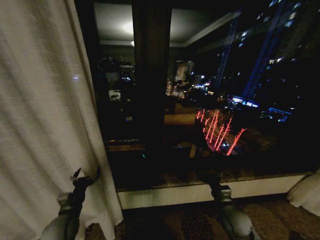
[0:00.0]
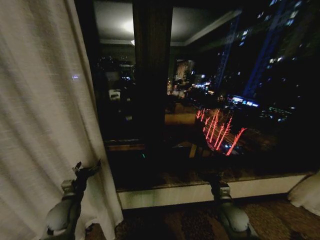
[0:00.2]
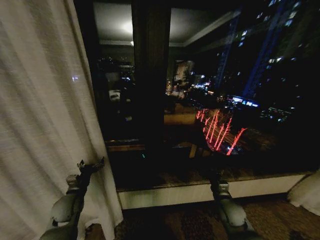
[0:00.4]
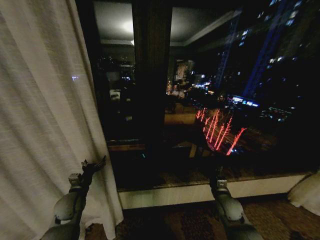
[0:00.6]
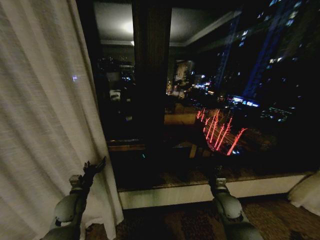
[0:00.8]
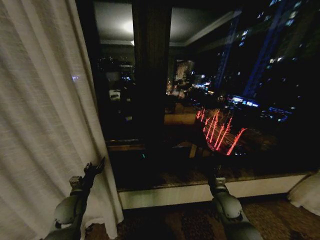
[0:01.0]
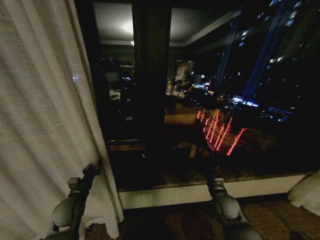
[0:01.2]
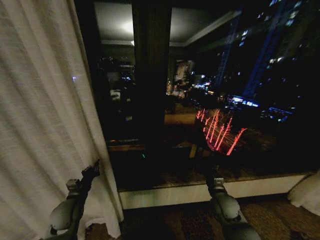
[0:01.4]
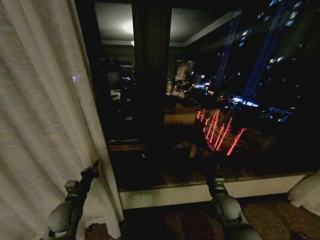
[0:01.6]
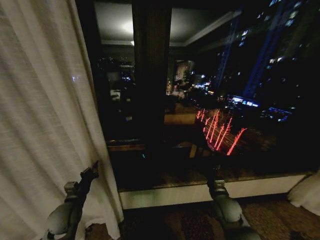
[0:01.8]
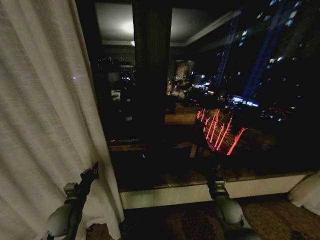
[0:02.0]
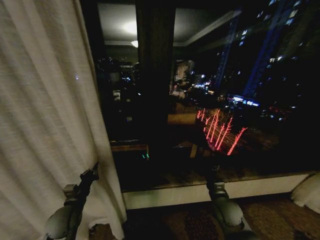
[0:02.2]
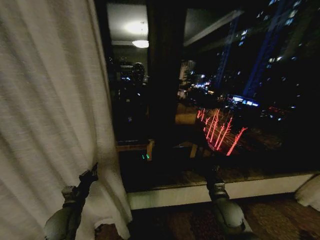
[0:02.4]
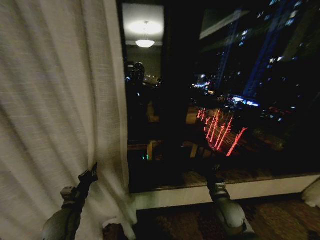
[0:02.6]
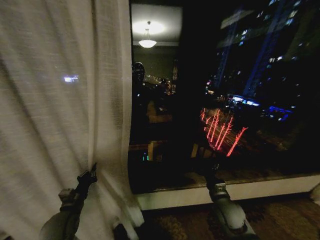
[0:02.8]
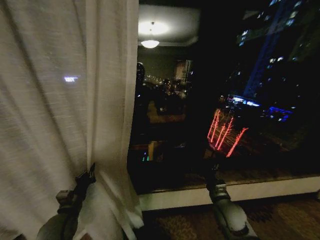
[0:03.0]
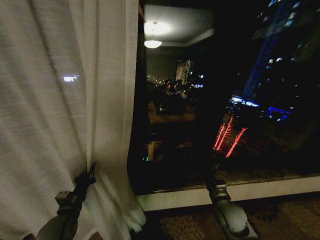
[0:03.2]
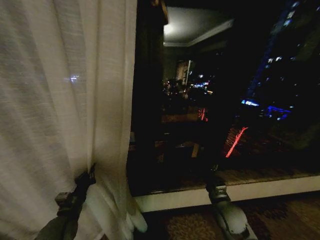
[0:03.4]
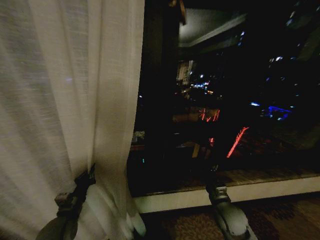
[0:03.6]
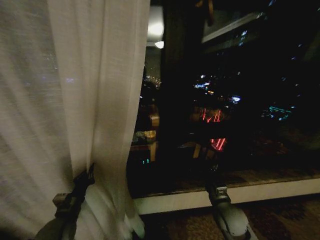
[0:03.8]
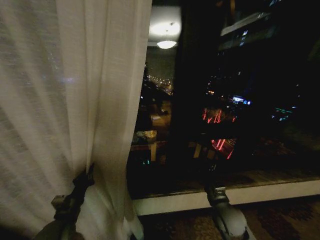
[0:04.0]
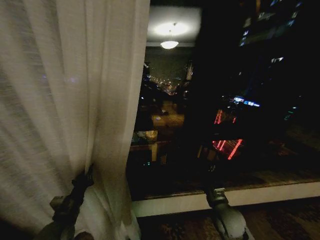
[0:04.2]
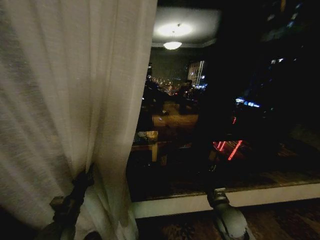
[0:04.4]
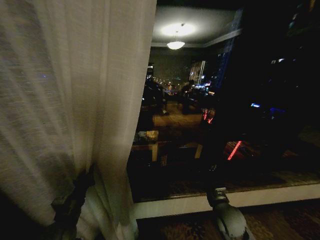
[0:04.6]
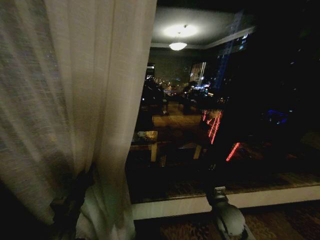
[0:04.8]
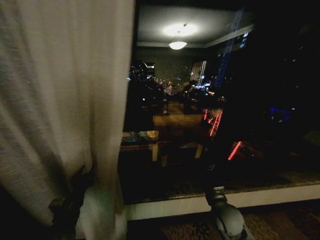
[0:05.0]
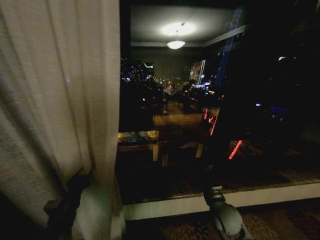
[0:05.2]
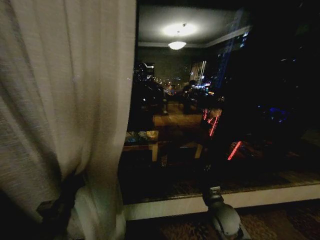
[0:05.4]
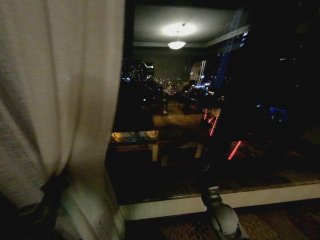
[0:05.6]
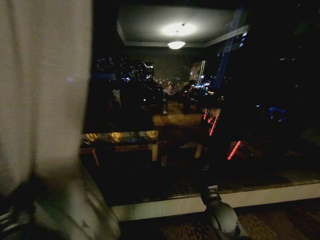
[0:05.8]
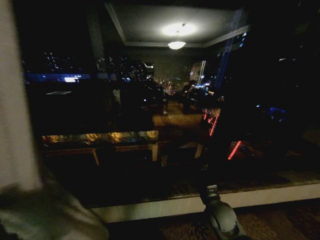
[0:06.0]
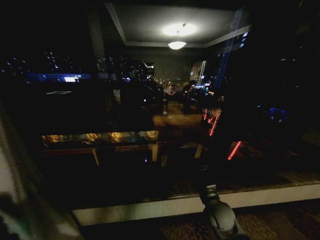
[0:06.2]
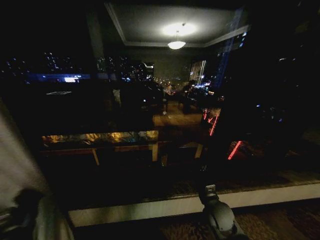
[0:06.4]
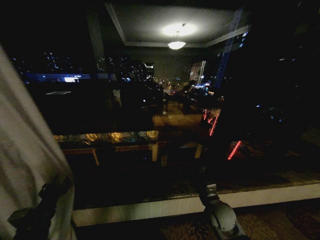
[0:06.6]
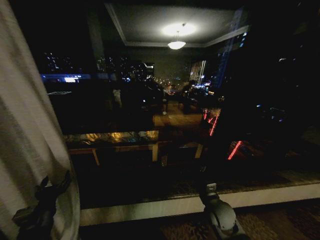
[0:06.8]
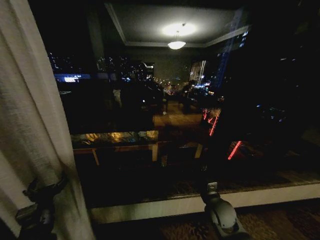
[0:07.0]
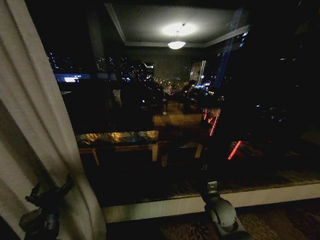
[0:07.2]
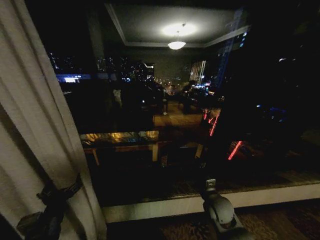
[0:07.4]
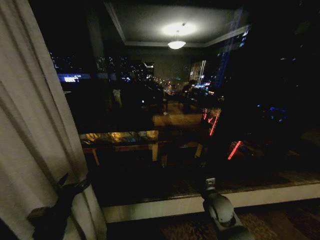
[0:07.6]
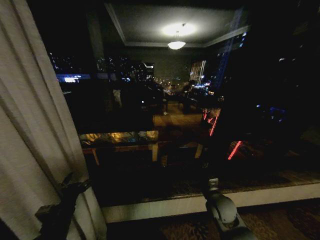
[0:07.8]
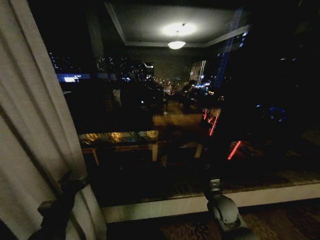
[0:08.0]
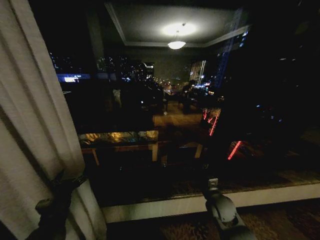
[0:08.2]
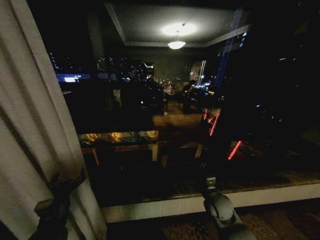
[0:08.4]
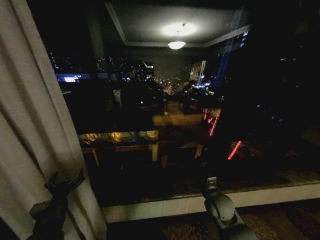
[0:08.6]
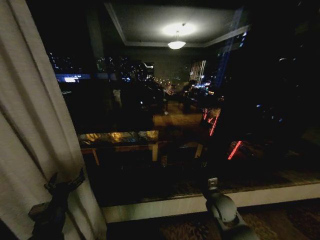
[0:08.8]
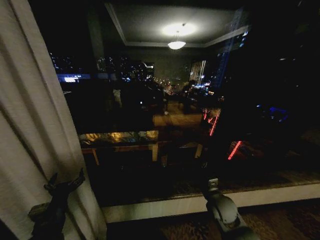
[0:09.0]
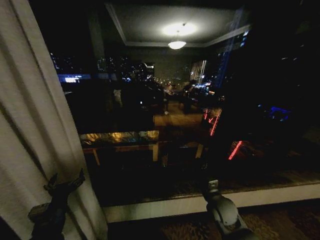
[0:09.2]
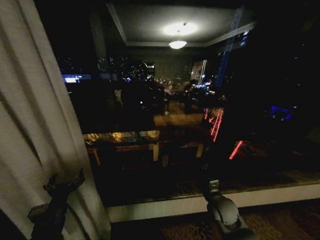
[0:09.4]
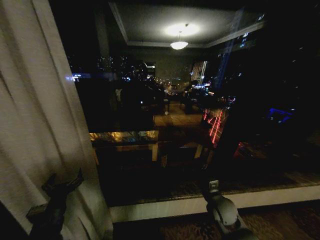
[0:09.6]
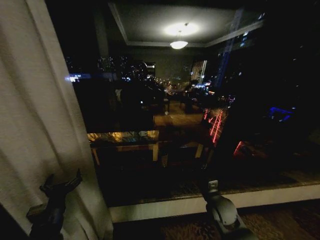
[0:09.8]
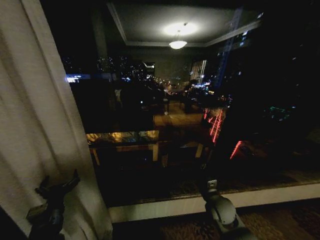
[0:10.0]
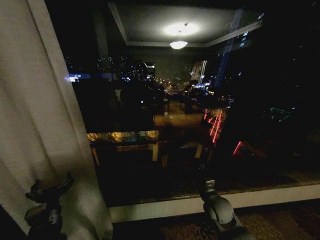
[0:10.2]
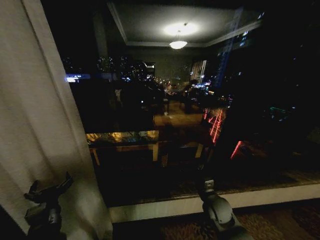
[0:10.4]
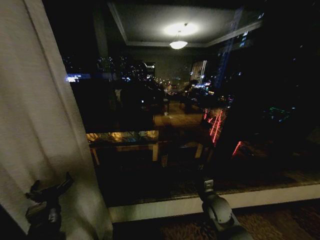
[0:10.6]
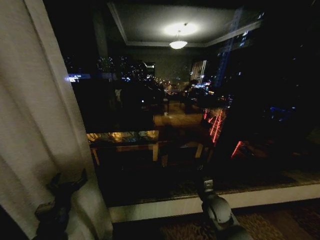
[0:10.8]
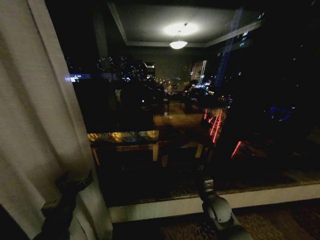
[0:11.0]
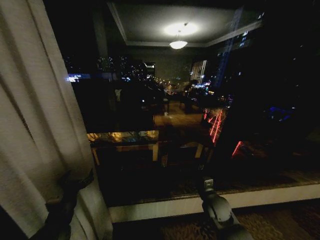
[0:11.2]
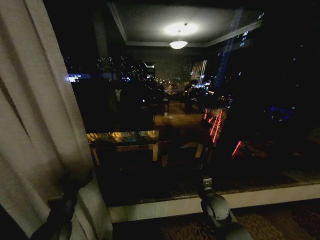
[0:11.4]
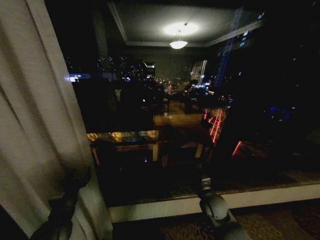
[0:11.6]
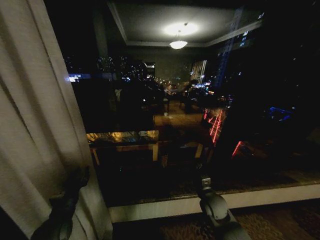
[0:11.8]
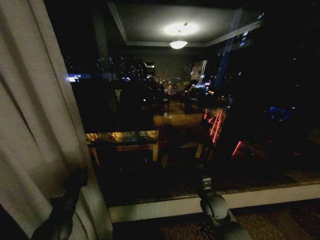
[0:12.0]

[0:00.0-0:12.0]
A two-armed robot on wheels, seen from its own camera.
Task of the whole recording: Open the curtains by pulling them apart, changing their state from closed to fully open.
0:00.0 to 0:01.6: The left gripper closes its fingers.
0:04.4 to 0:06.0: The left gripper goes some 15 cm to the left.
0:06.0 to 0:07.6: The left gripper travels to the right by roughly 15 cm, and opens its fingers.
0:07.6 to 0:09.0: The grippers make only small movements.
0:09.0 to 0:10.4: The grippers stay close to where they were, moving slightly.
0:10.4 to 0:12.0: The left gripper heads forward and downward, covering some 5 cm, and closes.

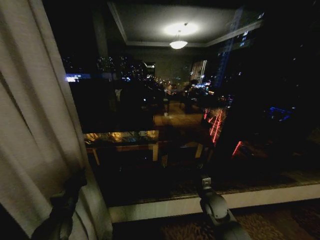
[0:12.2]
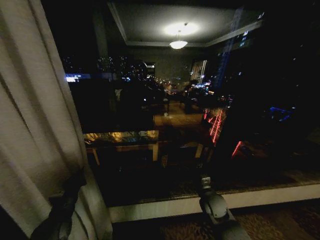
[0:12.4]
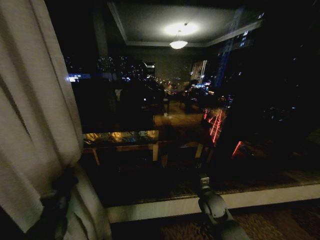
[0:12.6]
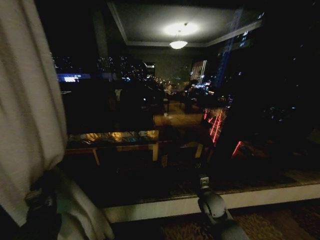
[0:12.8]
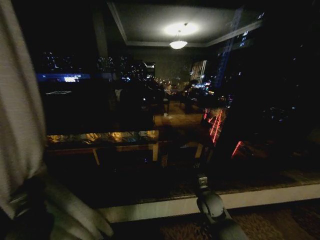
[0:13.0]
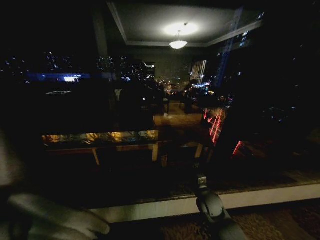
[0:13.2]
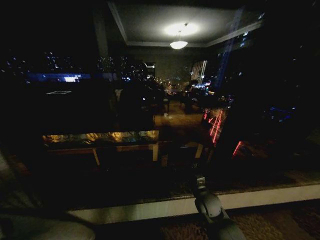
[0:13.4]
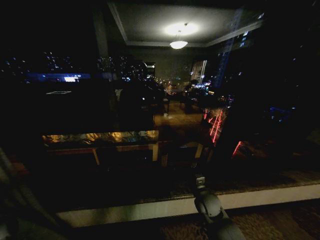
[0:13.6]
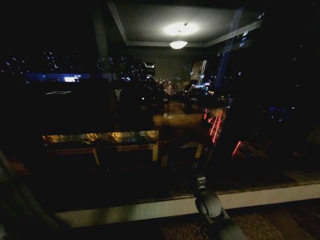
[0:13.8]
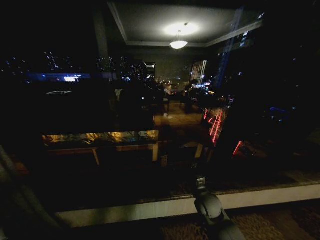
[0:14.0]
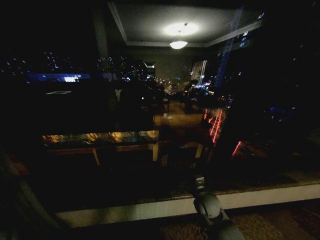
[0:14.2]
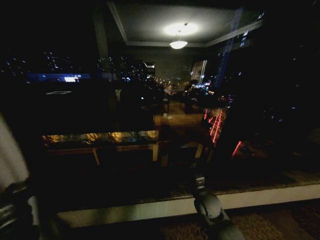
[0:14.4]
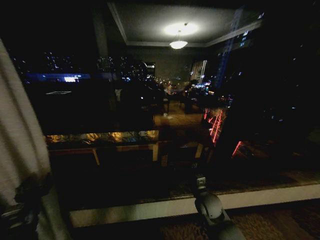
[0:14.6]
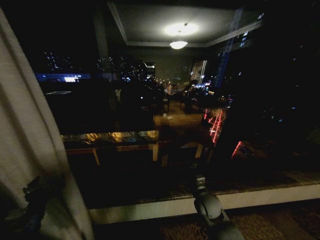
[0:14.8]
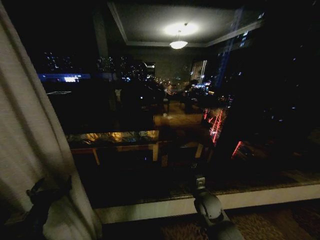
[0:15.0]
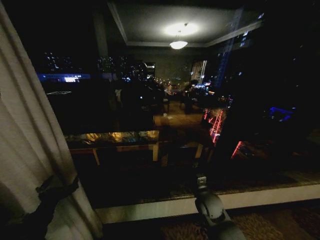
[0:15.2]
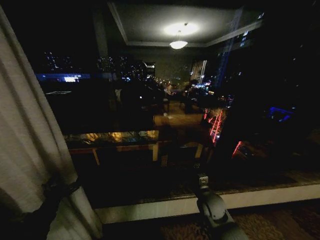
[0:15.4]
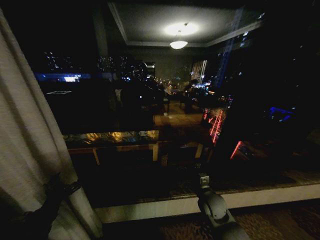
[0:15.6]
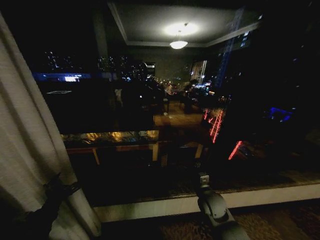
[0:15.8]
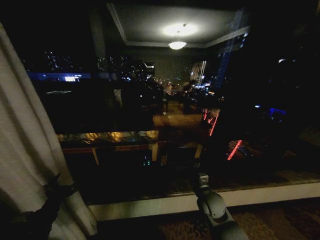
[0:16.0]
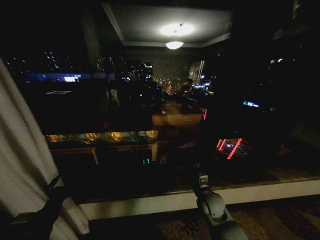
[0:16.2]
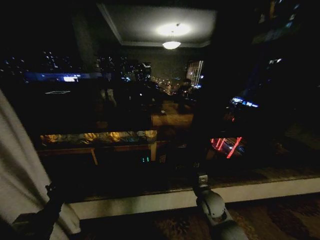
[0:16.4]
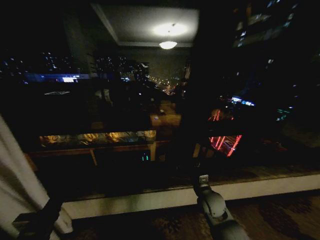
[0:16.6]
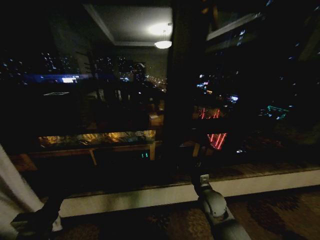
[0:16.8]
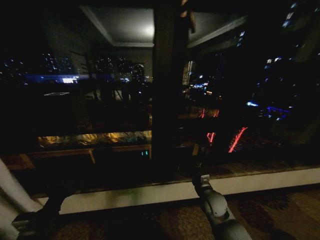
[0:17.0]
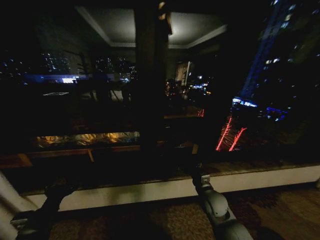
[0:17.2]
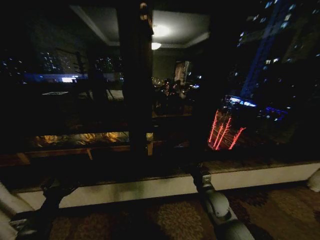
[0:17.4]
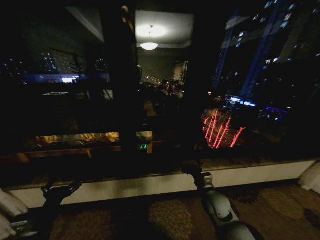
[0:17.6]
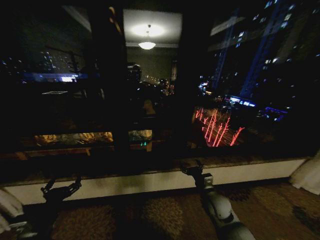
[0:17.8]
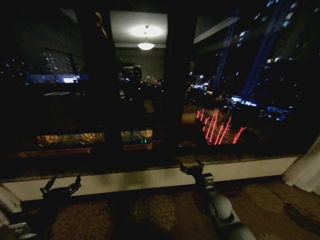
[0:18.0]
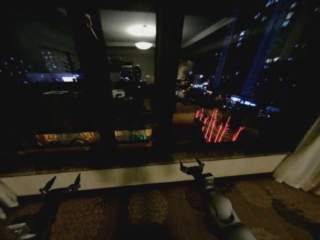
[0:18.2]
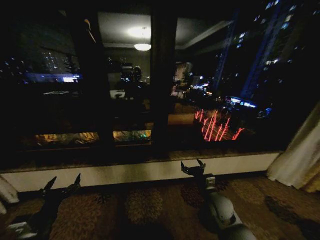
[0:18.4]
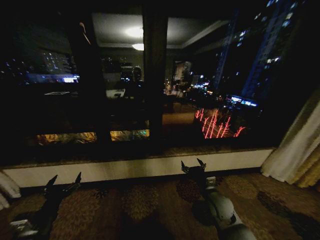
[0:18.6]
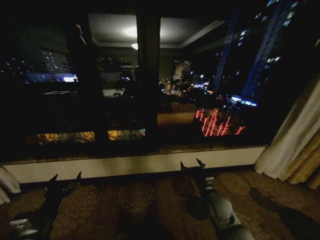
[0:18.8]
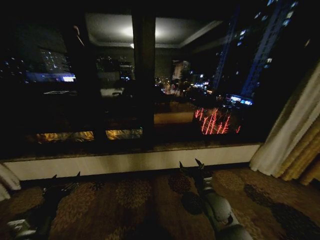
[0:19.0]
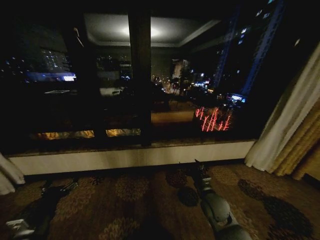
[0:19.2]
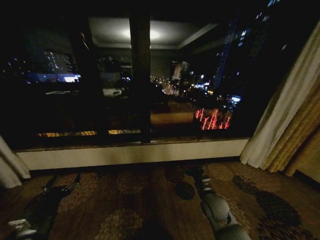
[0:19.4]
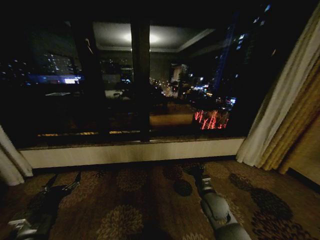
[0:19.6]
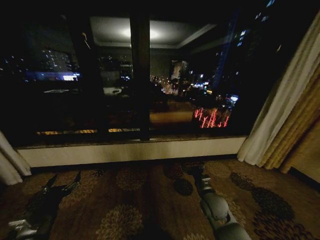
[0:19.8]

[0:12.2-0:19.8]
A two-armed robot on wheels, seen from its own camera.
Task of the whole recording: Open the curtains by pulling them apart, changing their state from closed to fully open.
0:12.2 to 0:13.8: The left gripper travels to the left by approximately 15 cm.
0:13.8 to 0:15.2: The left gripper is displaced to the right and backward by roughly 15 cm, and opens its fingers.

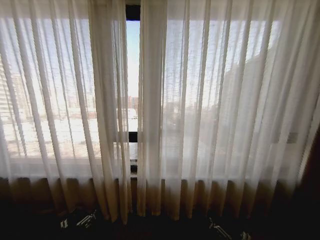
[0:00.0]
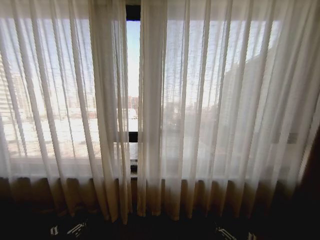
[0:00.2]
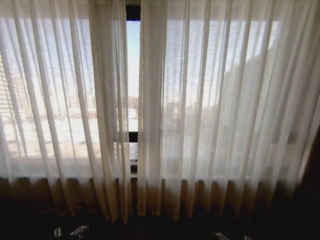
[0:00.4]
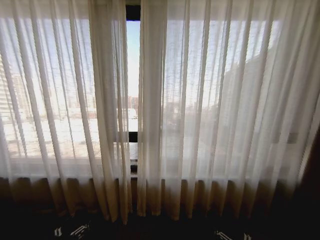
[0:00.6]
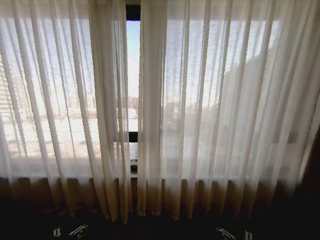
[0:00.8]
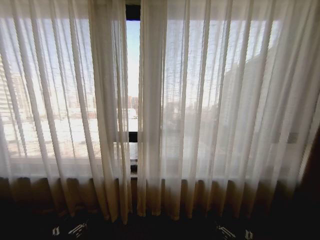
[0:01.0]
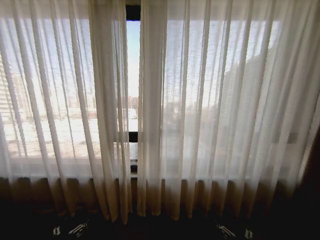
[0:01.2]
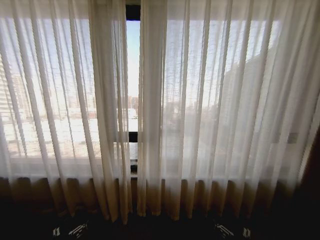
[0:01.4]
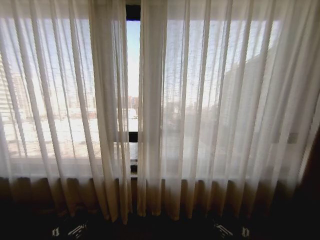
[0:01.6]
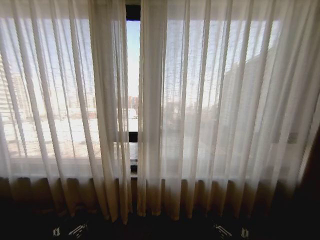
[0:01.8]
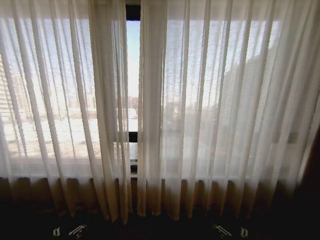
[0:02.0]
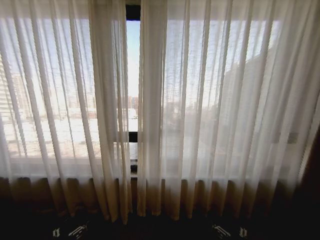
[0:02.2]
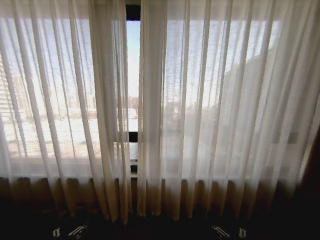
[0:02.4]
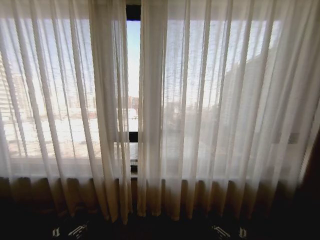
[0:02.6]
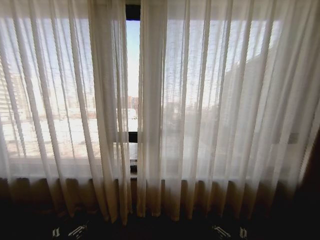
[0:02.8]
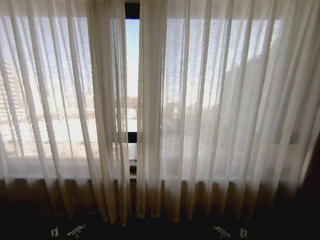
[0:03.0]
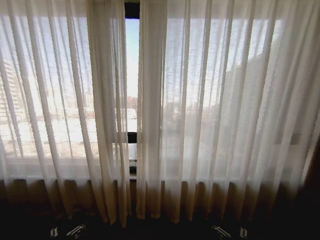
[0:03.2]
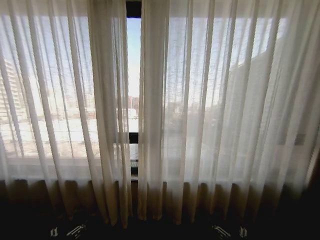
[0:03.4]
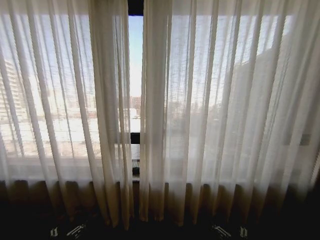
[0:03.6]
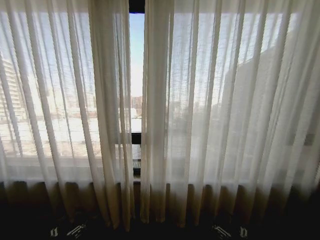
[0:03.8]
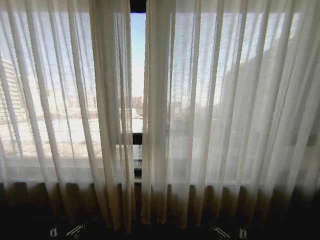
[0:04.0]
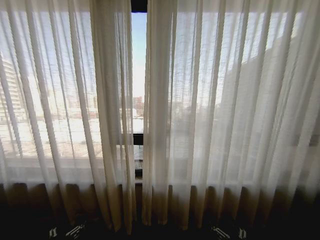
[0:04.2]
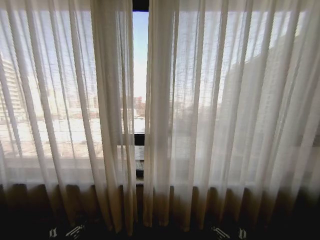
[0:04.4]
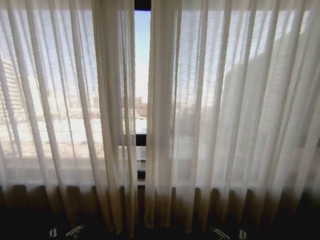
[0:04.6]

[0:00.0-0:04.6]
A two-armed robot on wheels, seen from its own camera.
Task of the whole recording: Open the curtains by pulling them apart, changing their state from closed to fully open.
0:01.6 to 0:03.0: The two grippers keep their place.
